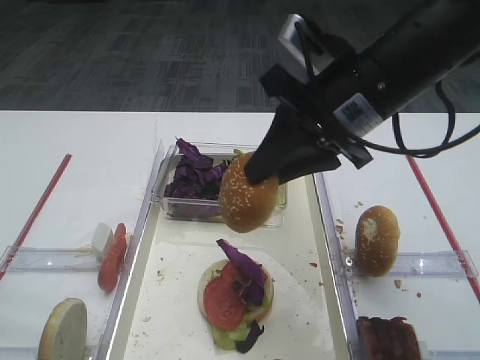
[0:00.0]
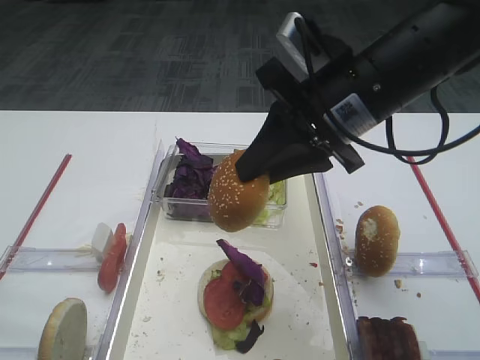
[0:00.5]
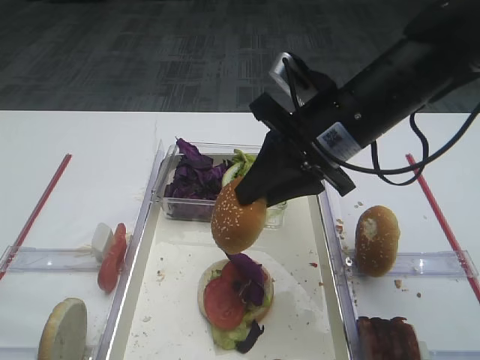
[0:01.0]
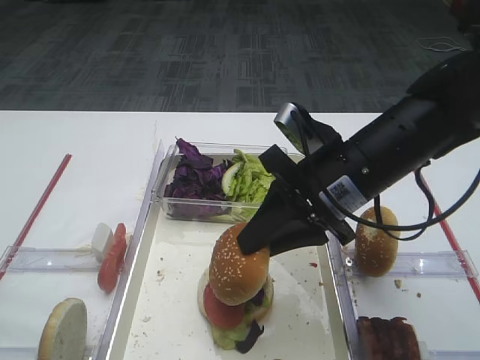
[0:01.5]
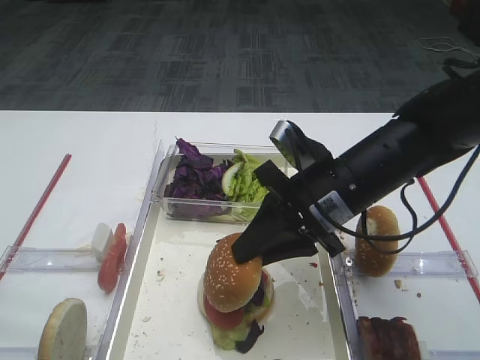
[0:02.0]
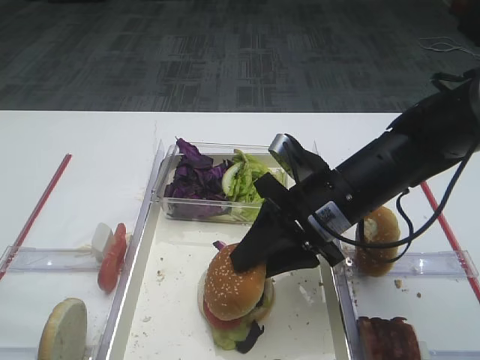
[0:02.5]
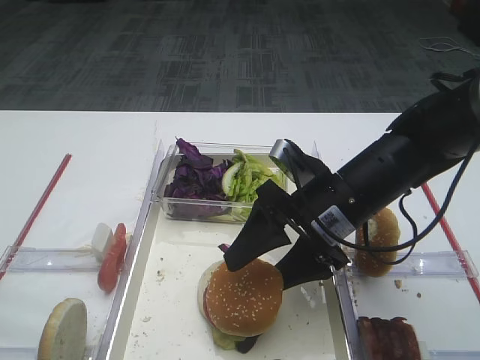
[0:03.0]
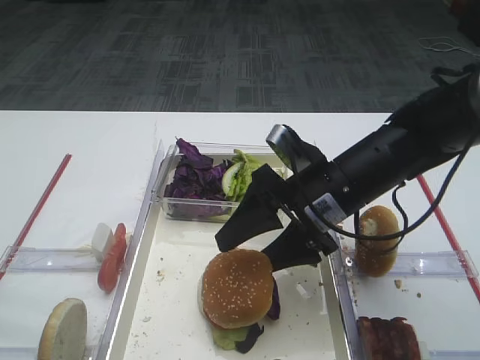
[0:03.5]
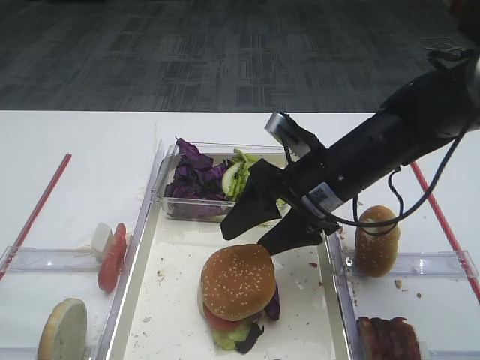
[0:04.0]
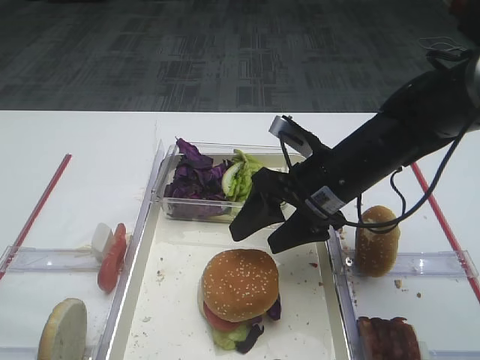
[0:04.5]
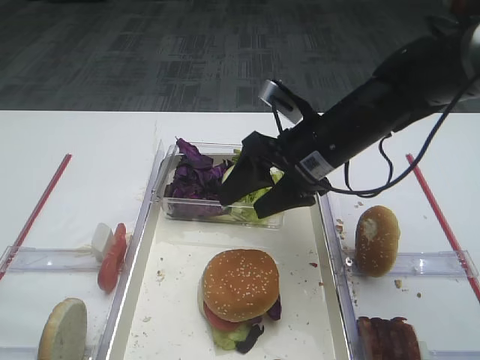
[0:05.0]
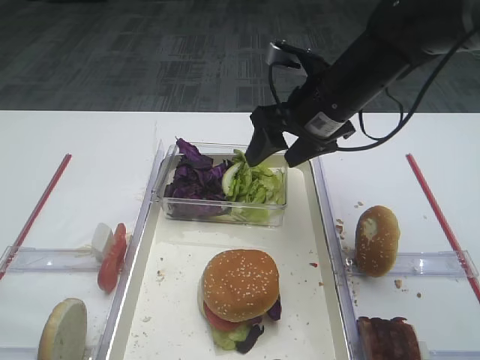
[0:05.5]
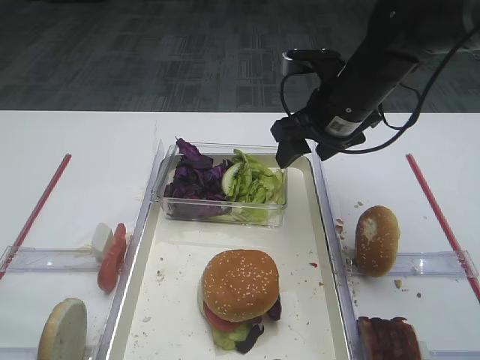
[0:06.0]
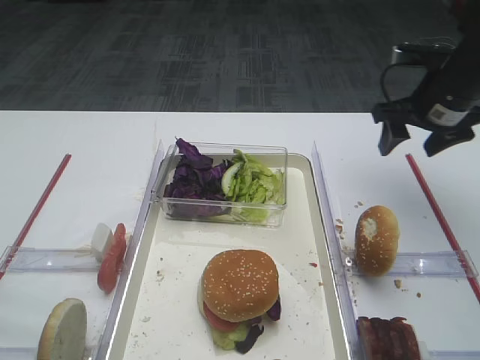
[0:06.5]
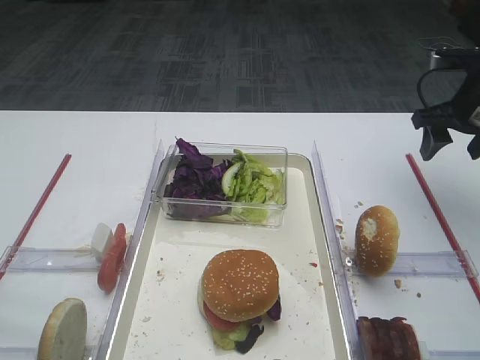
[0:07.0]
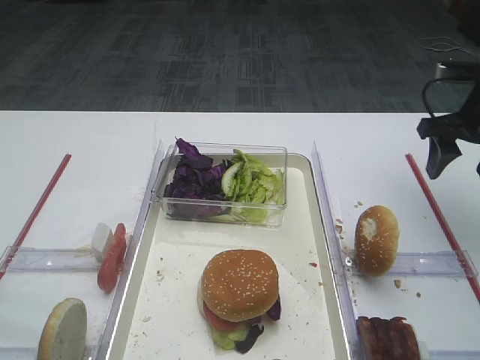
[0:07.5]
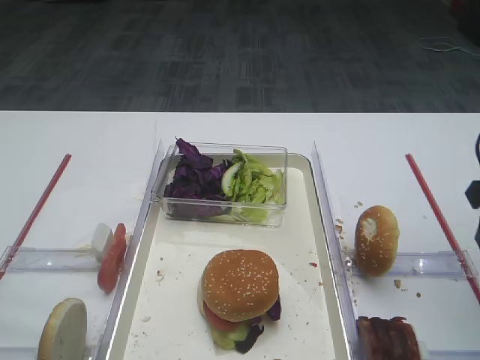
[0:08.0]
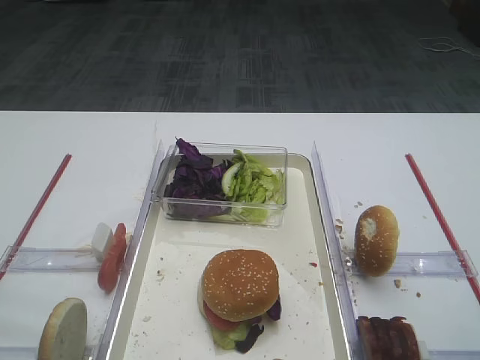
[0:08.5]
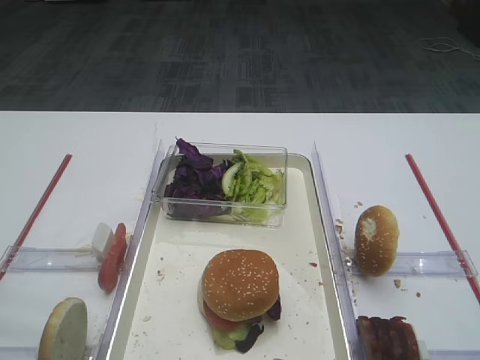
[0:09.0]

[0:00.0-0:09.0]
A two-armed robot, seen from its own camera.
Step, 0:00.0 to 0:04.5: Place the hamburger lid on the purple cabbage with the right gripper.
0:00.0 to 0:02.0: The right gripper heads downward, covering roughly 10 cm.
0:02.0 to 0:04.5: The right gripper opens.
0:04.5 to 0:07.0: The right gripper goes approximately 20 cm to the right and forward.
0:07.0 to 0:09.0: The right gripper is displaced backward by roughly 35 cm.

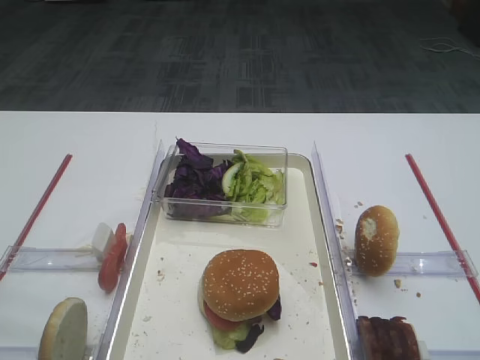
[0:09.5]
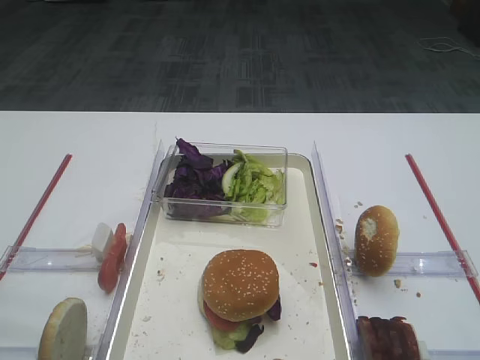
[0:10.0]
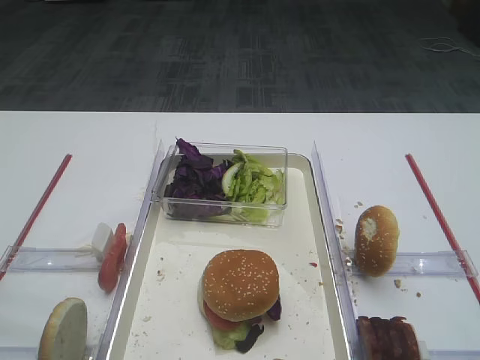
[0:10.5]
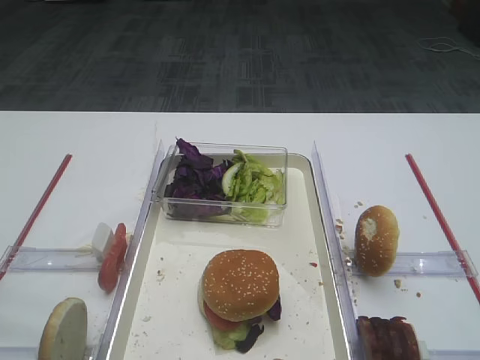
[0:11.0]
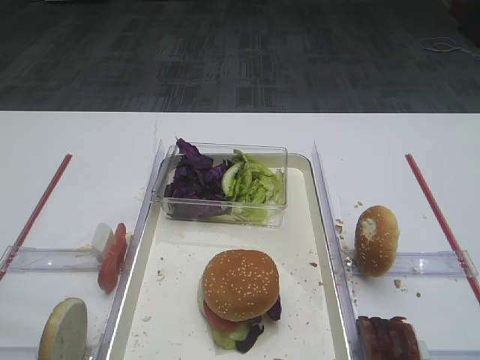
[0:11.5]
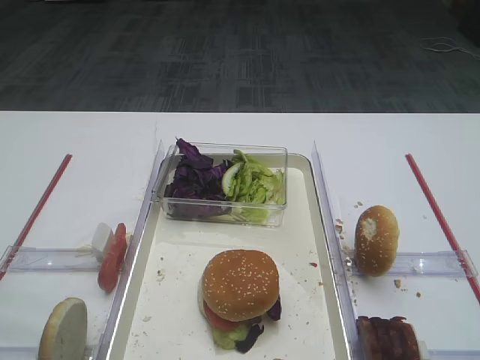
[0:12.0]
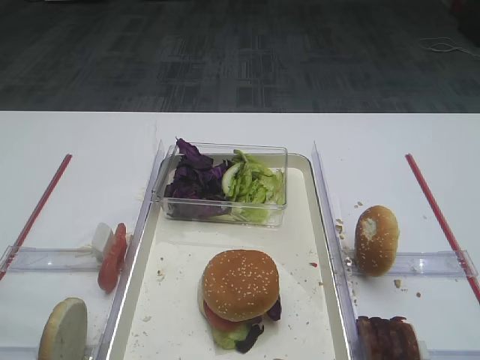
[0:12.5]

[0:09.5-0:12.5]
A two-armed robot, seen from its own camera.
0:09.5 to 0:12.5: Neither gripper changes place.
